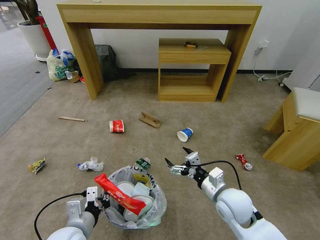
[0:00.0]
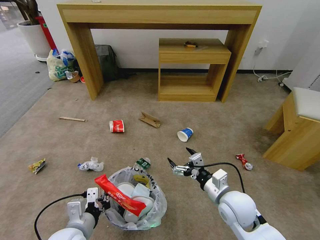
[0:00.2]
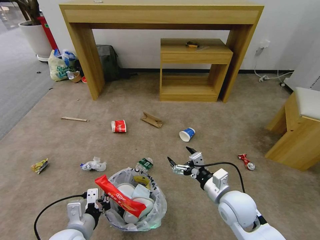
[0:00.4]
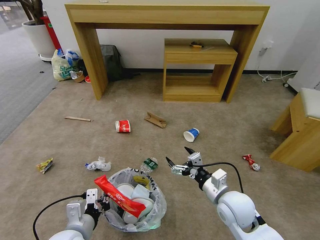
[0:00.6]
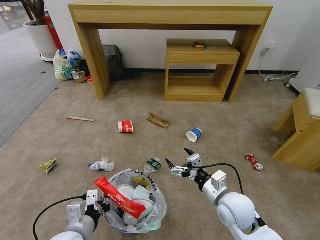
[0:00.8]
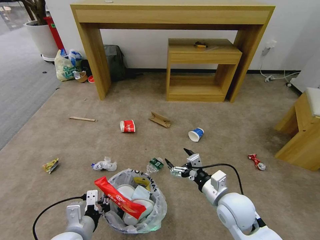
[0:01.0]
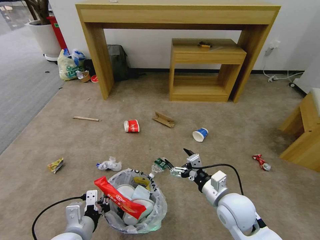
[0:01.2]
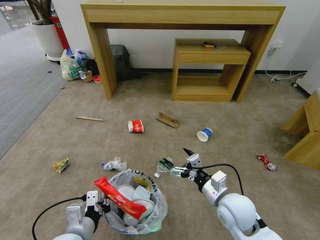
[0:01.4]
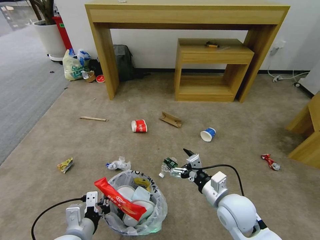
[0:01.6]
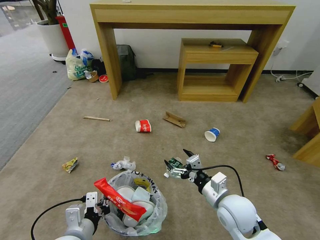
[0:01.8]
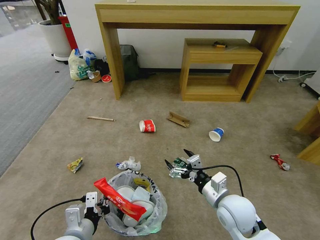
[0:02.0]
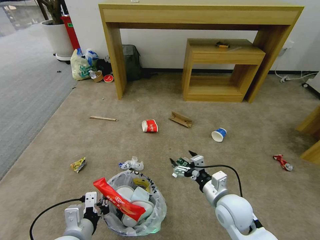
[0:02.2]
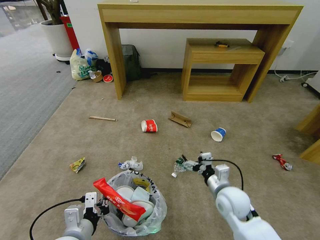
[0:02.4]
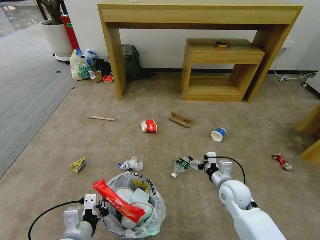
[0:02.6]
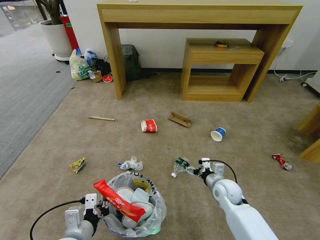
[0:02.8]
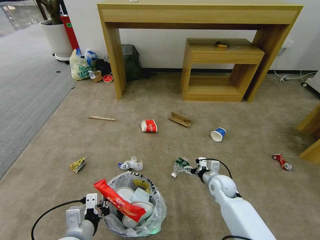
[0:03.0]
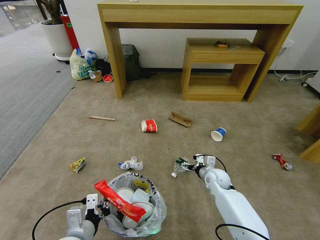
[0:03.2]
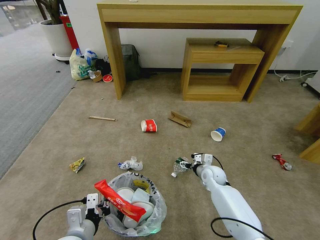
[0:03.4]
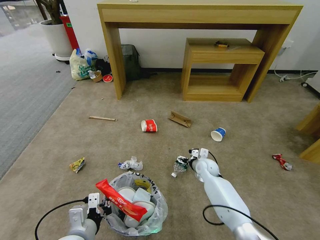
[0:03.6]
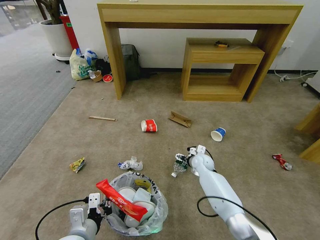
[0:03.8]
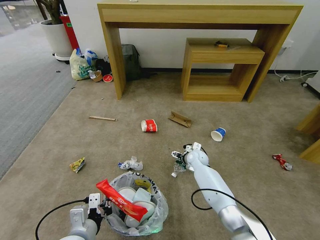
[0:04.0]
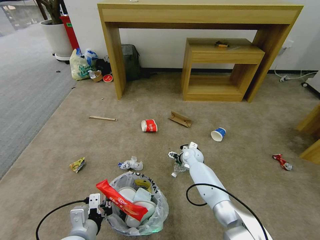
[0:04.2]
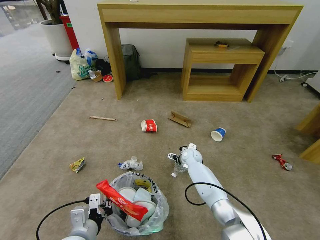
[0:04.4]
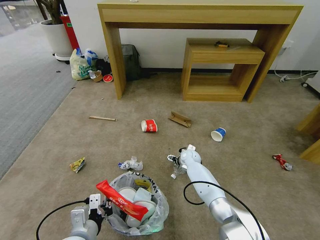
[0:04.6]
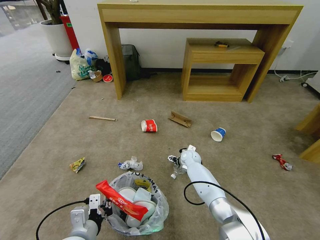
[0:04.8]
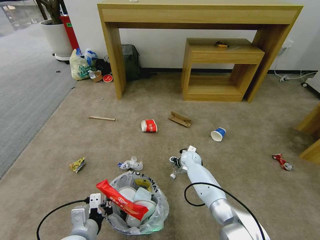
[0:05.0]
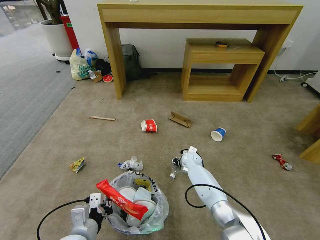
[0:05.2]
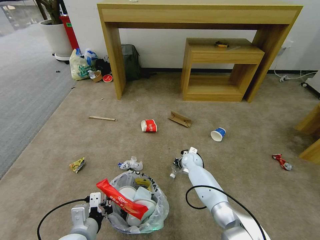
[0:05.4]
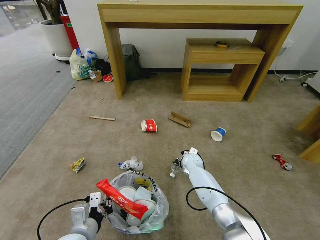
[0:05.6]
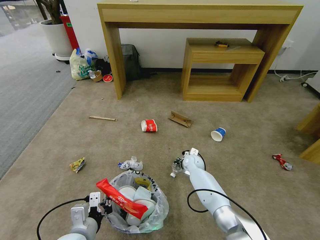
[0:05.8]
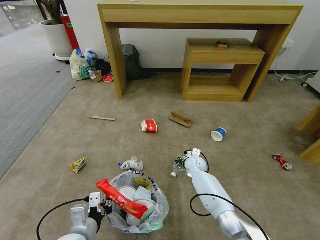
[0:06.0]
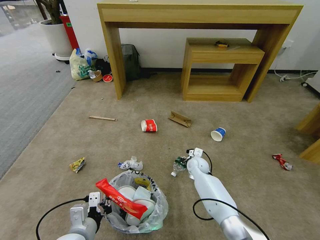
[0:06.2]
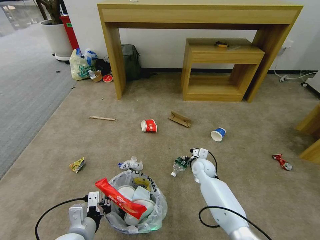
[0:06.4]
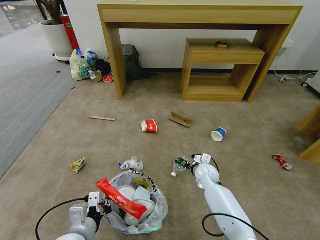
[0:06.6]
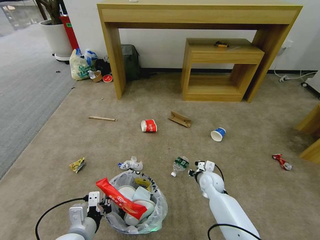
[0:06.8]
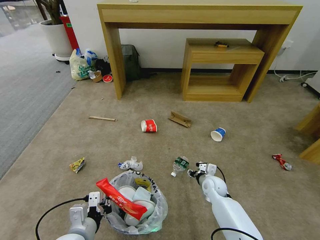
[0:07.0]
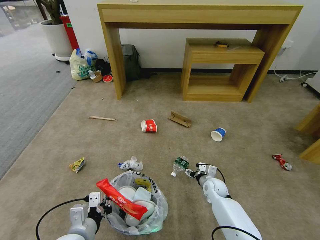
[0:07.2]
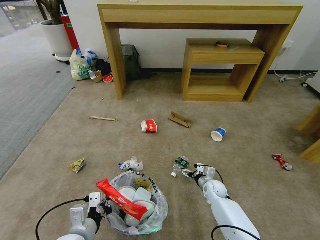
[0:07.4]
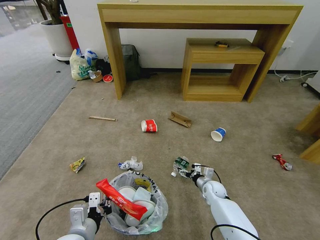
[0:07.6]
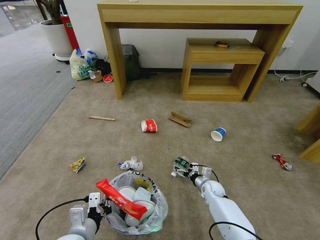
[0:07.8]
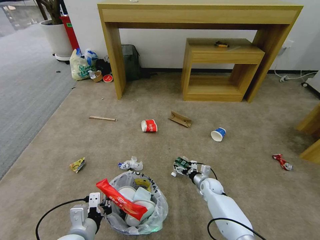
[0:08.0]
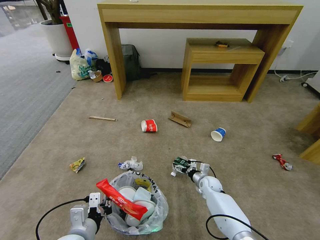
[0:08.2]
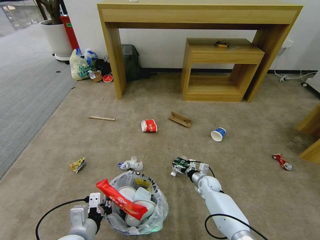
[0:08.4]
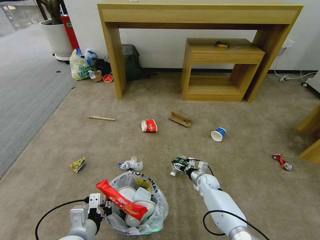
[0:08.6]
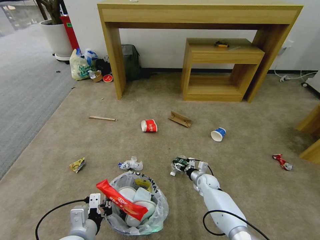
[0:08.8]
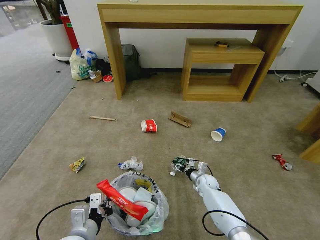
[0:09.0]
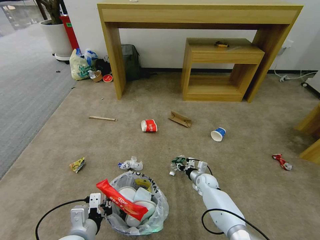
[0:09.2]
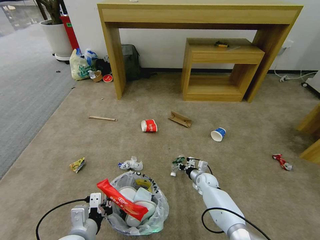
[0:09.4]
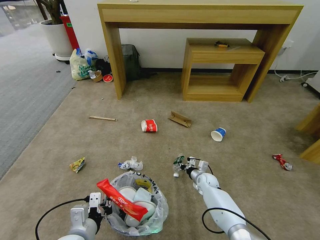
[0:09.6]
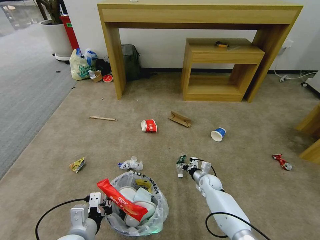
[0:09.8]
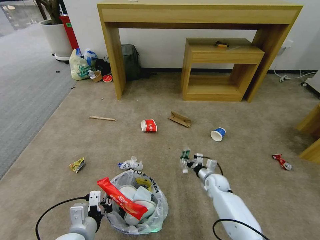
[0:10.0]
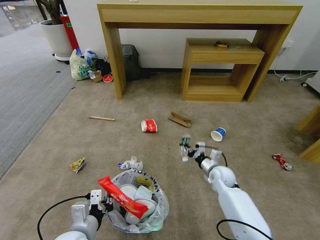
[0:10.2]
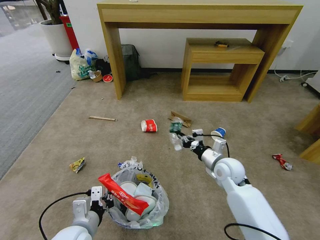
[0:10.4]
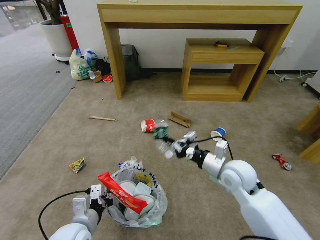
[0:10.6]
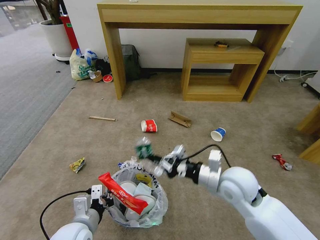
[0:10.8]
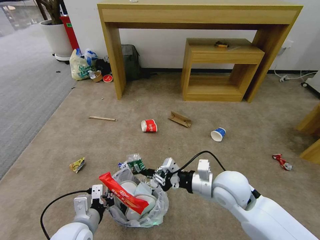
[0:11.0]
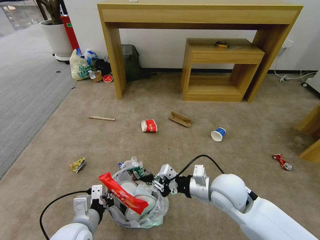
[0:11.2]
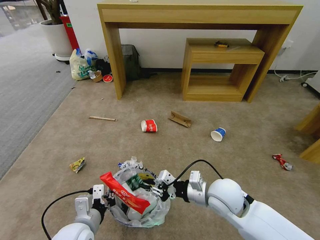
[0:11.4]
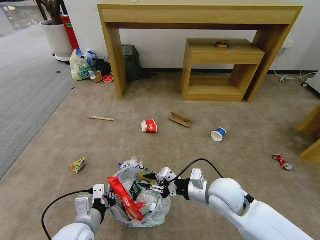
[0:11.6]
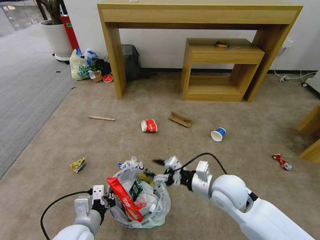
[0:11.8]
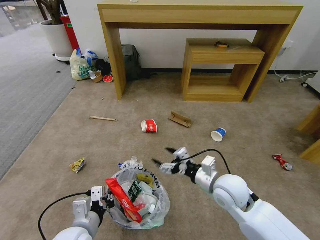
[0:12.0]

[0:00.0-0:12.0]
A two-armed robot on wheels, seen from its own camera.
Task of the whole recording: Pick up the trash bin and place the garbage on the floor into it.
0:01.6 to 0:03.0: The right gripper goes roughly 15 cm forward and downward.
0:03.0 to 0:04.4: The right gripper travels forward and to the left by approximately 15 cm.
0:04.4 to 0:06.0: The right gripper closes.
0:06.0 to 0:07.6: The right gripper goes roughly 15 cm backward, to the right and downward, and opens up.
0:07.6 to 0:09.0: The right gripper closes.
0:09.0 to 0:10.4: The right gripper heads upward, covering roughly 25 cm, and closes its fingers.
0:10.4 to 0:12.0: The right gripper moves backward, approximately 10 cm, and opens up.

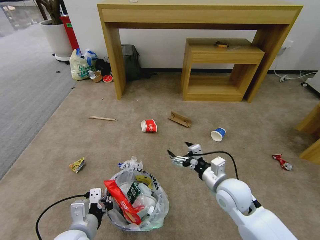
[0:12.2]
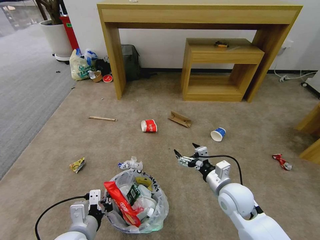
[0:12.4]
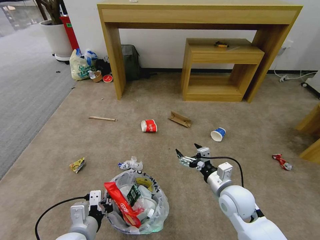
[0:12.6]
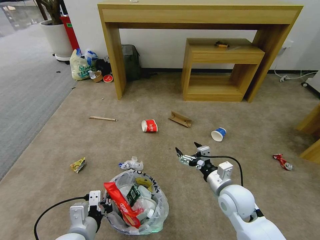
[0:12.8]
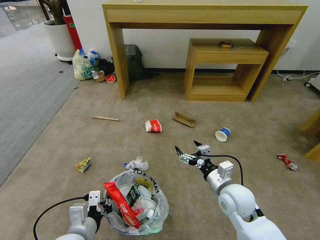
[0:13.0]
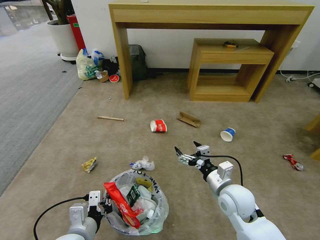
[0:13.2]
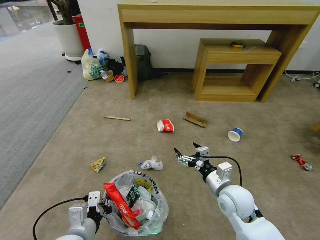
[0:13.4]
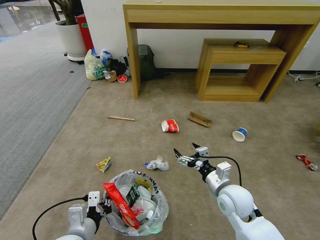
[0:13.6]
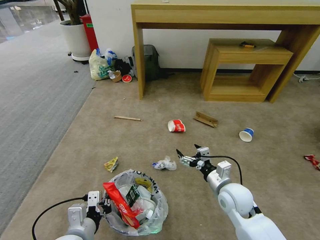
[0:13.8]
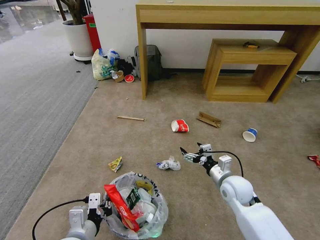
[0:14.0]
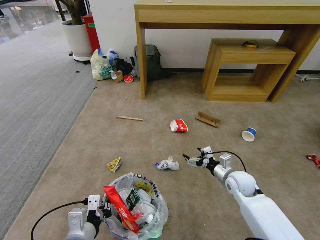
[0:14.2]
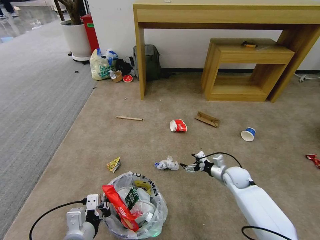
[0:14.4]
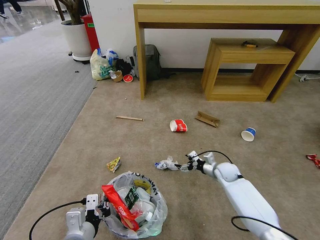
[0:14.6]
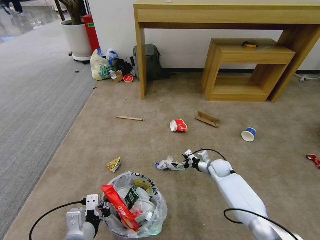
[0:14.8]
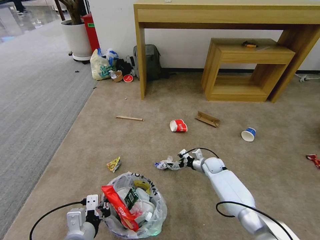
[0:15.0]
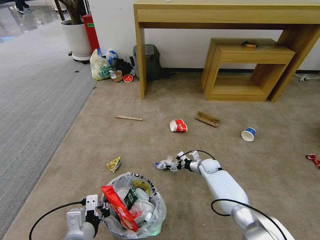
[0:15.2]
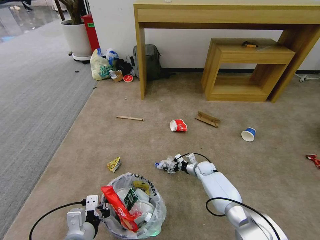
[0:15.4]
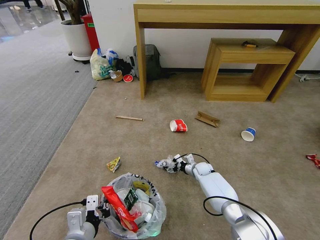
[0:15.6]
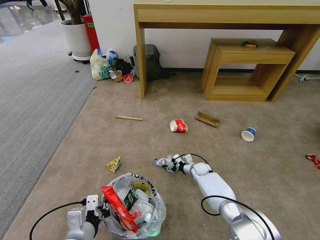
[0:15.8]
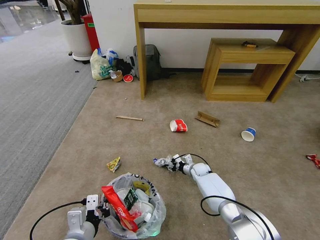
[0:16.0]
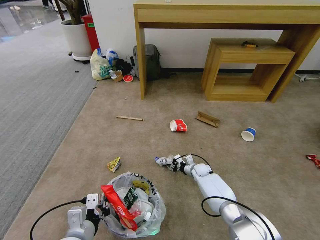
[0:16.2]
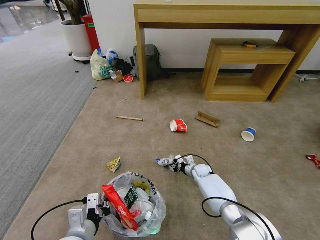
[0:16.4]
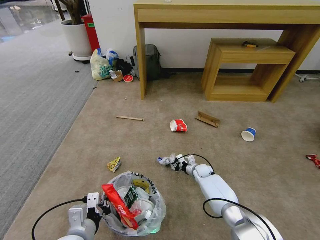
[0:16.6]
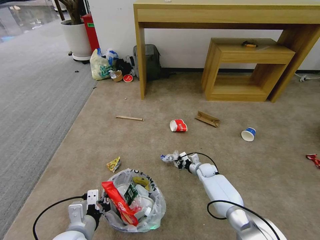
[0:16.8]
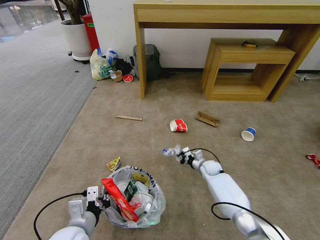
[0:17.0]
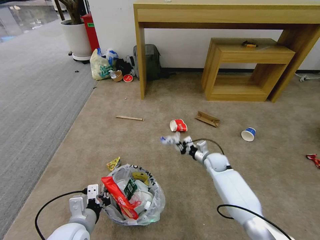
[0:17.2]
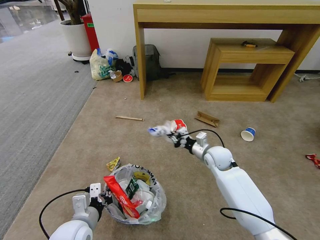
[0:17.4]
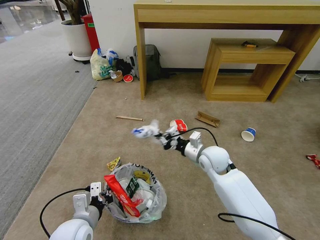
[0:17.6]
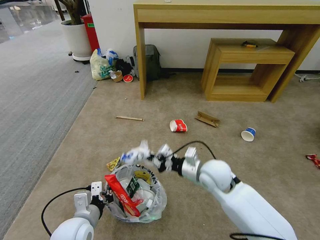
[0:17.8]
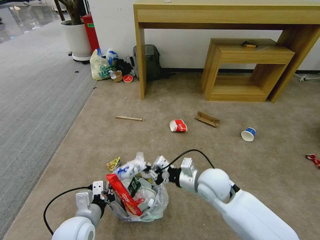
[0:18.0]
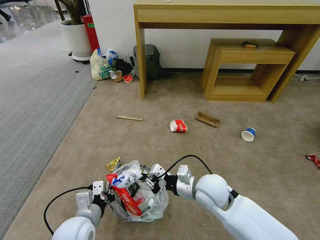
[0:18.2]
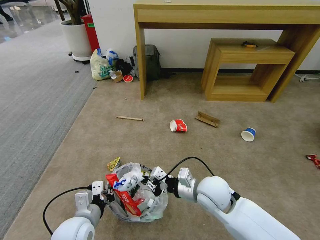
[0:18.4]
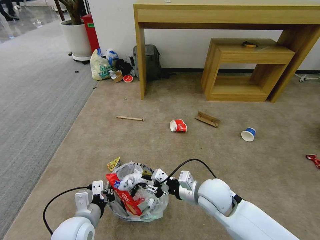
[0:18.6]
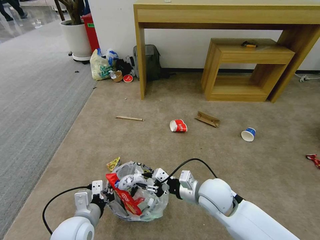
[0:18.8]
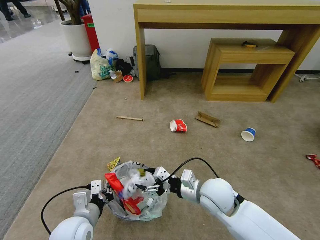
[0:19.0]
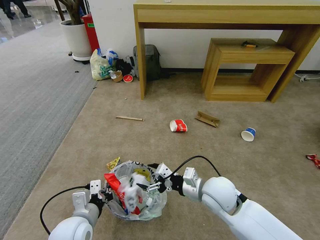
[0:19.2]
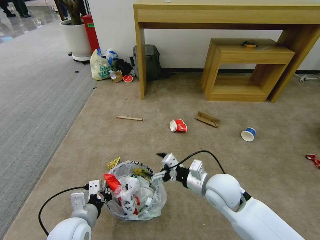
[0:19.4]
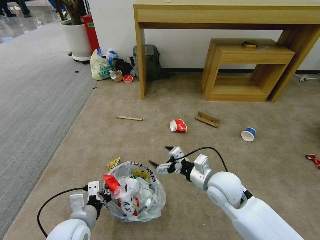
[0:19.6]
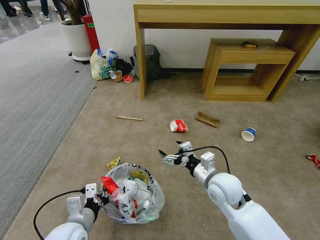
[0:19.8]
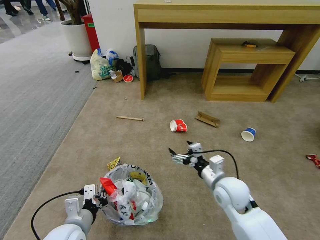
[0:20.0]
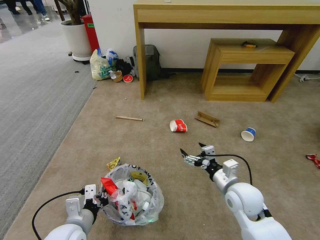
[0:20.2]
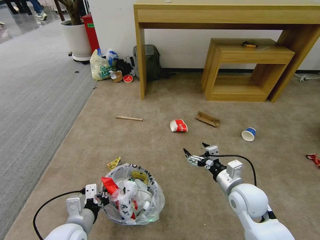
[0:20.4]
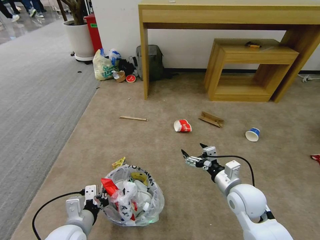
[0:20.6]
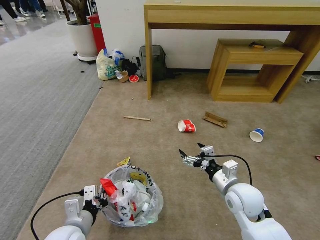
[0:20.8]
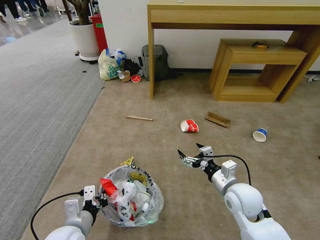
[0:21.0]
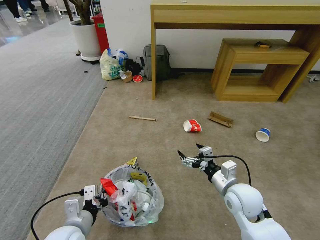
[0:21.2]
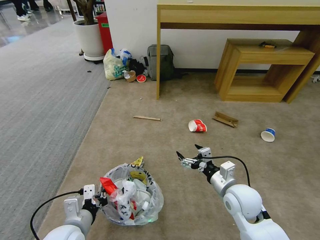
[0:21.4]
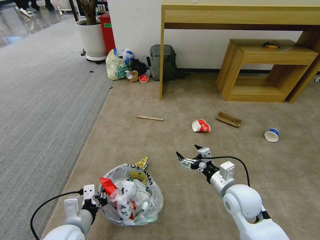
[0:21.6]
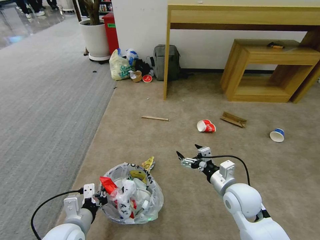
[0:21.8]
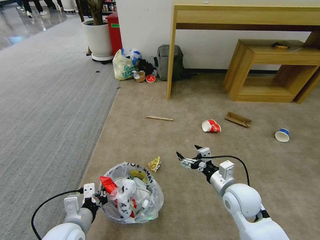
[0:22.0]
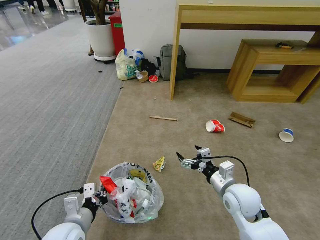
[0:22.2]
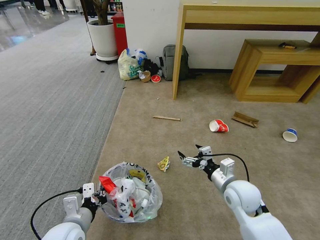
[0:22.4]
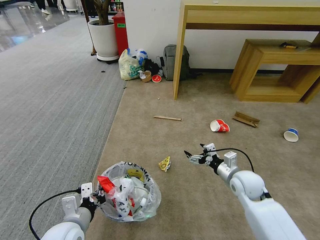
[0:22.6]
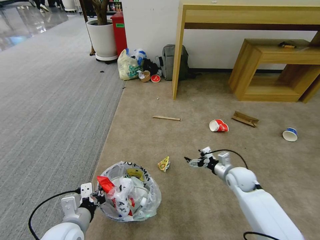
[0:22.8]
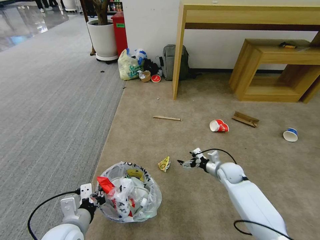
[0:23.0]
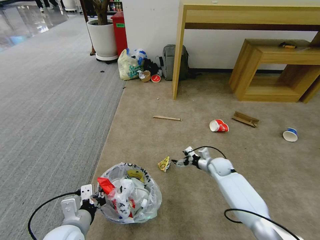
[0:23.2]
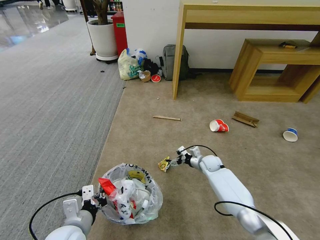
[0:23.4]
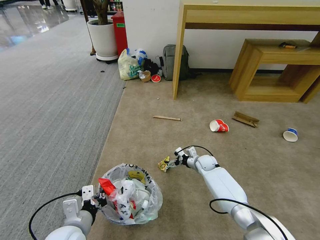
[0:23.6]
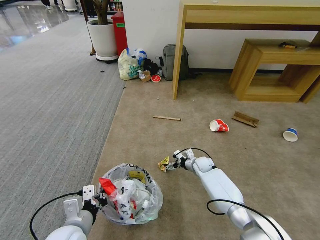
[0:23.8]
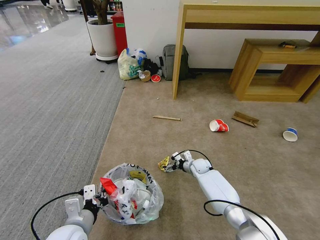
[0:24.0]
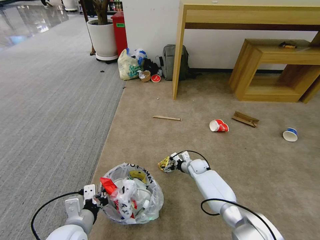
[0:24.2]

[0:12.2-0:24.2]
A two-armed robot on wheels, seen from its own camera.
Task of the whole recording: Pick up the trash bin and place the garbage on the floor into it.
0:13.8 to 0:15.2: The right gripper goes some 25 cm forward and downward.
0:15.2 to 0:16.6: The right gripper closes up.
0:16.6 to 0:18.2: The right gripper heads upward and backward, covering approximately 30 cm.
0:18.2 to 0:19.8: The right gripper opens its fingers.
0:19.8 to 0:21.2: The right gripper travels to the right by roughly 5 cm.
0:21.2 to 0:22.6: The right gripper heads forward, covering roughly 5 cm.
0:22.6 to 0:24.2: The right gripper is displaced downward, forward and to the left by some 25 cm.
